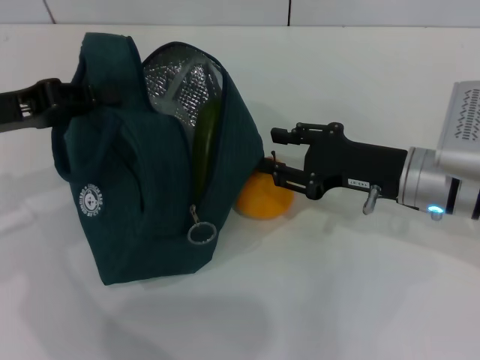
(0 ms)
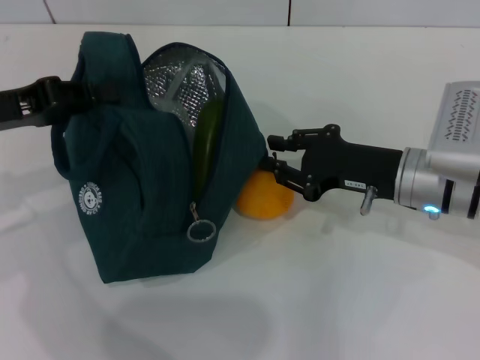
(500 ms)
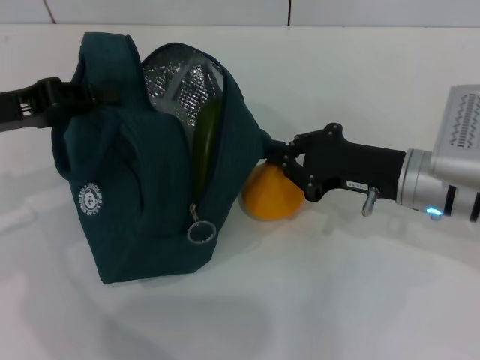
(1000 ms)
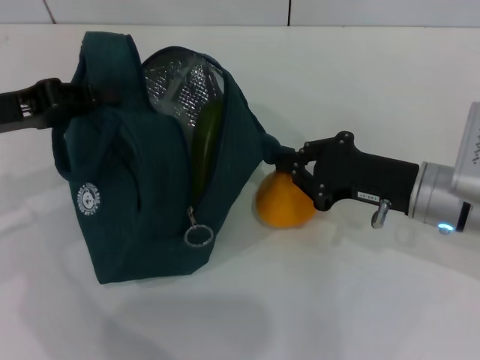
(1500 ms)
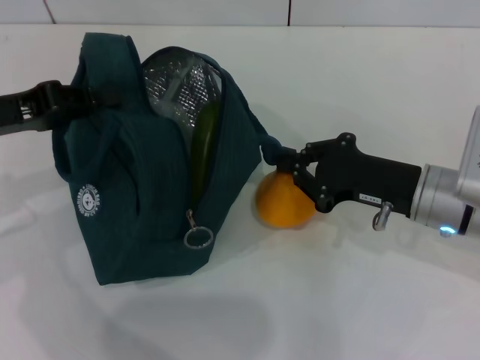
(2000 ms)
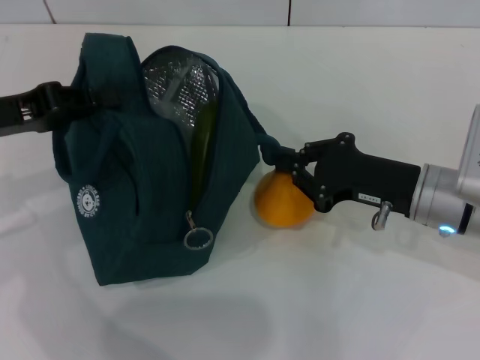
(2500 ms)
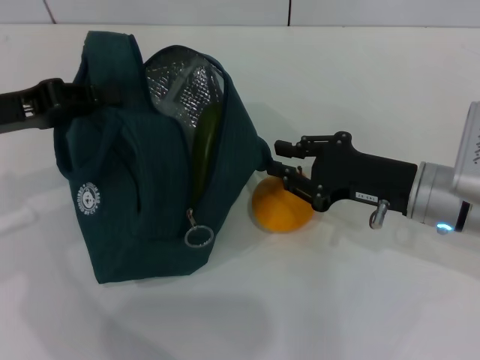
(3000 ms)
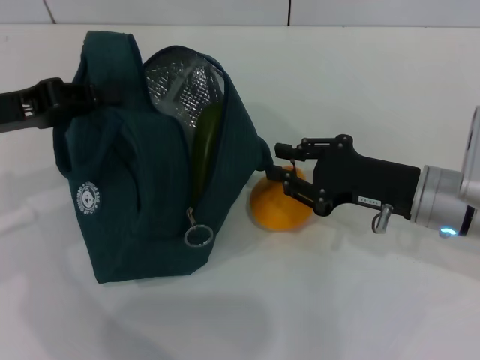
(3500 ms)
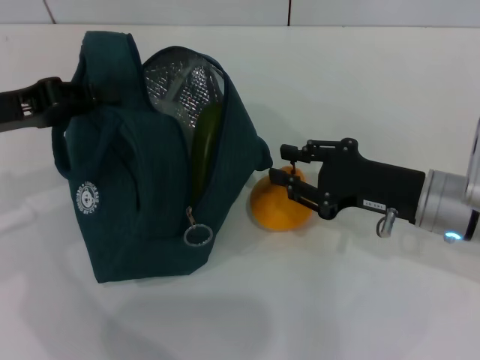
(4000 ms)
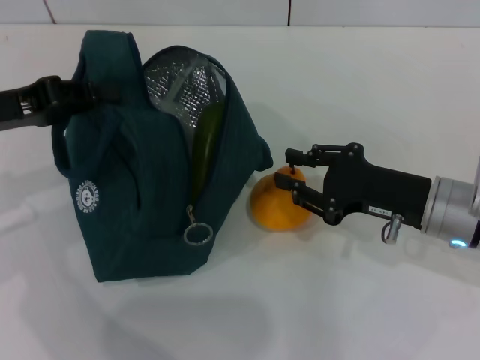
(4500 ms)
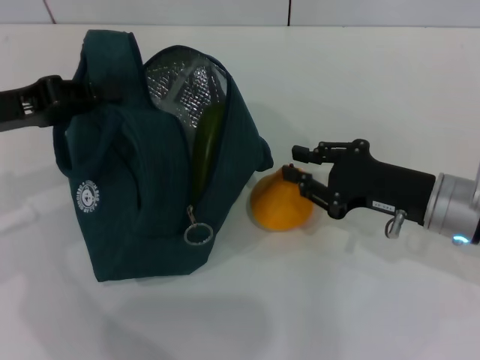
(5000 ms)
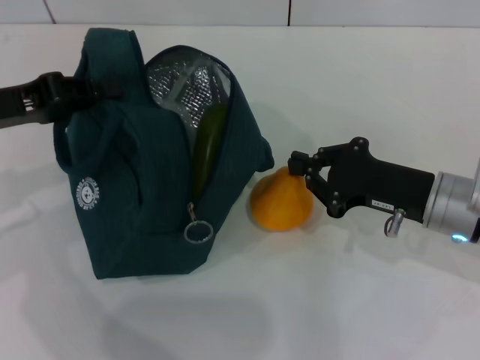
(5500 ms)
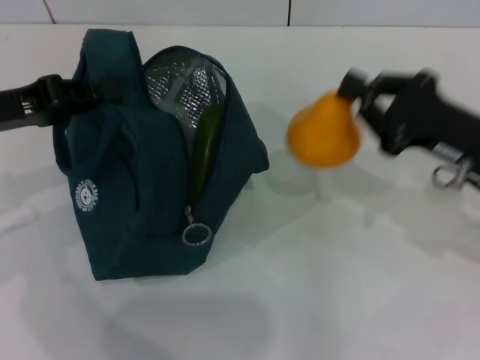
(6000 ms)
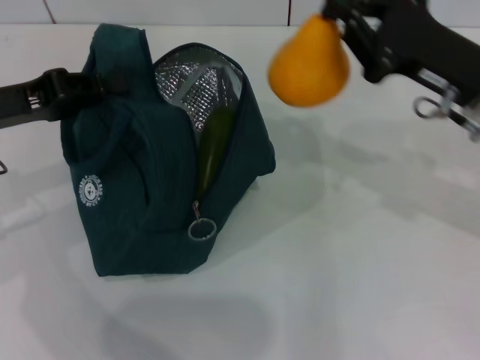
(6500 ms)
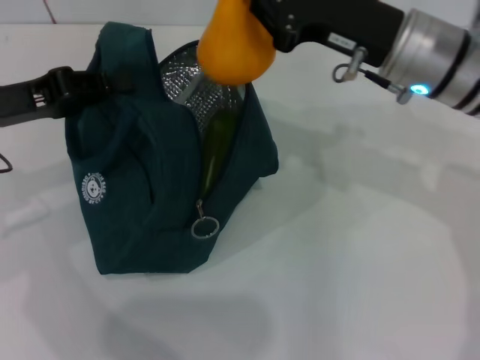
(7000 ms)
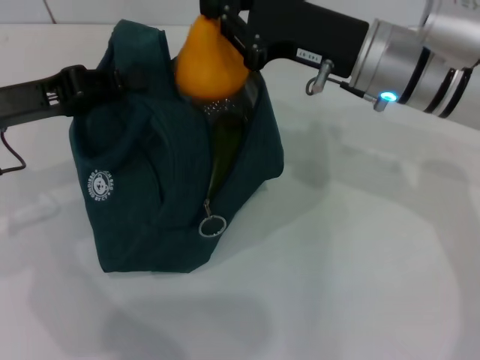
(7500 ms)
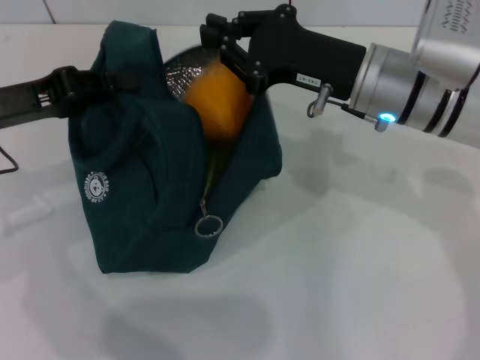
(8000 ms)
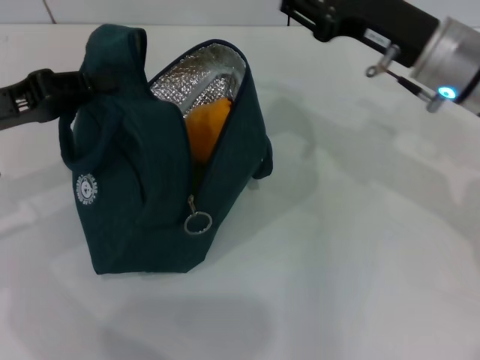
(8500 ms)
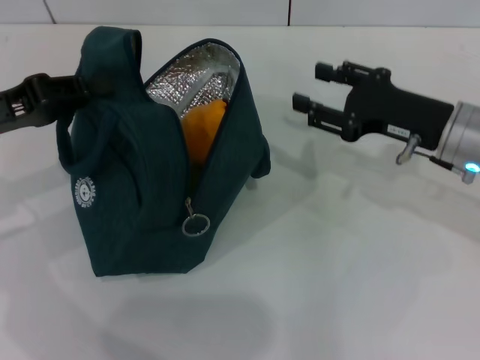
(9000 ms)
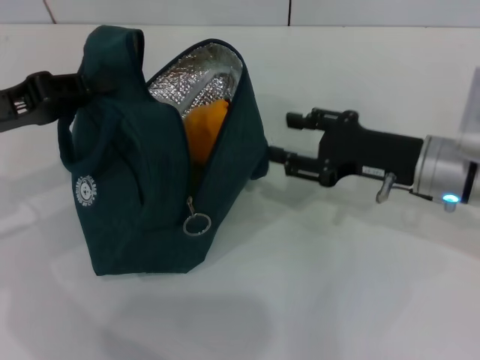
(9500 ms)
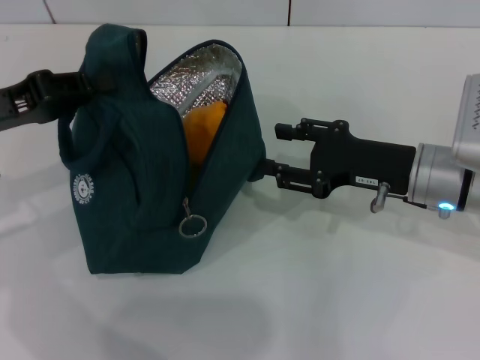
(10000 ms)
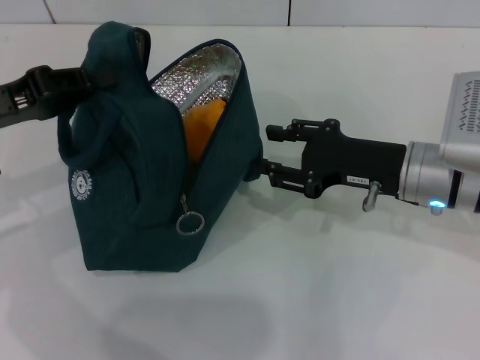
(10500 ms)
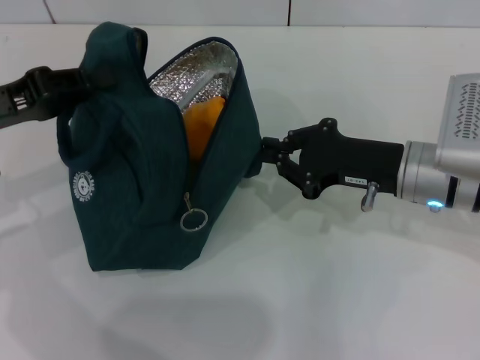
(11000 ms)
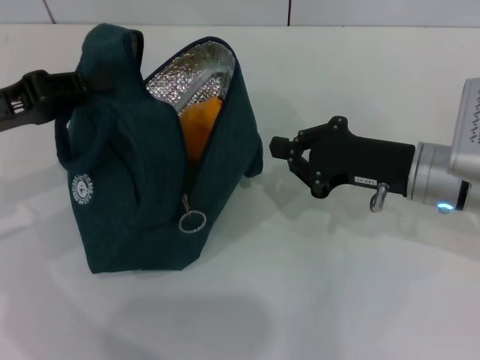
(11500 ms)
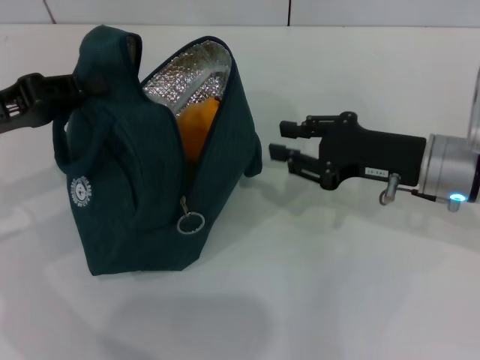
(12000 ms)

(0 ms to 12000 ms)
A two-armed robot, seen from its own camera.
Step, 0 ms - 5500 ms: Grab the pear with your right hand.
0 ms - 2000 ms: The right gripper closes.
2000 ms - 4000 ms: Both grippers stay put.
4000 ms - 6000 ms: The right gripper ends up approximately 5 cm from where it was, and closes its fingers.
6000 ms - 8000 ms: The right gripper moves to the left and forward, roughly 15 cm.
8000 ms - 10000 ms: The right gripper is displaced downward and to the right by approximately 10 cm, and opens.
10000 ms - 12000 ms: The right gripper closes its fingers.

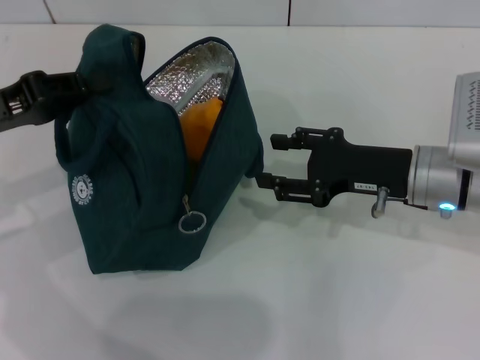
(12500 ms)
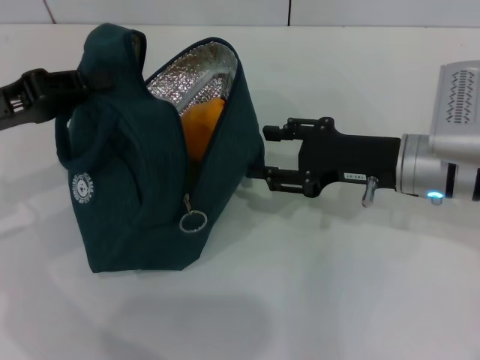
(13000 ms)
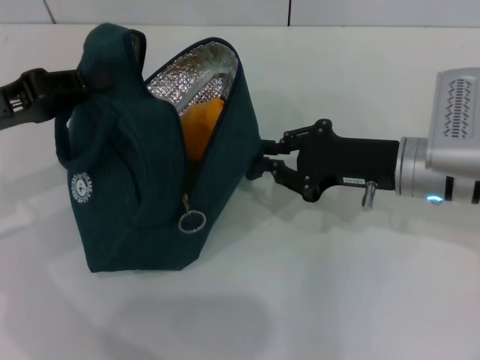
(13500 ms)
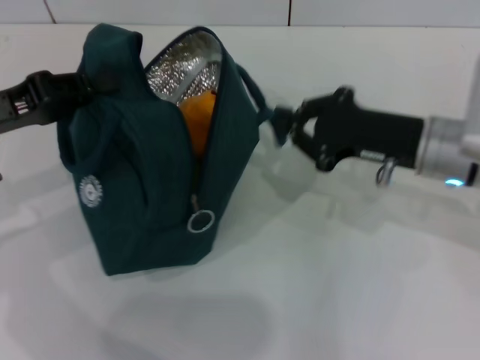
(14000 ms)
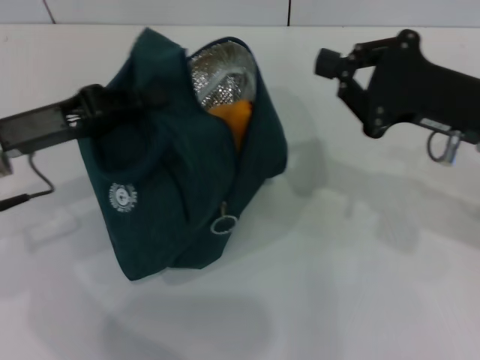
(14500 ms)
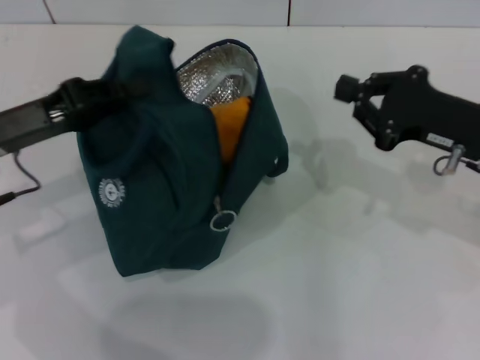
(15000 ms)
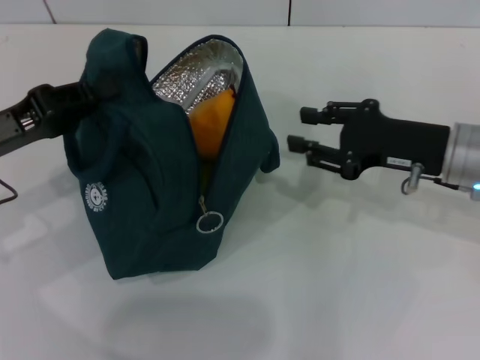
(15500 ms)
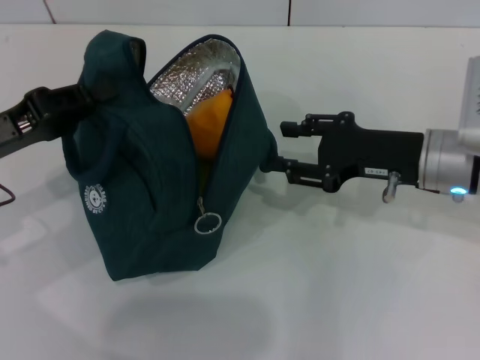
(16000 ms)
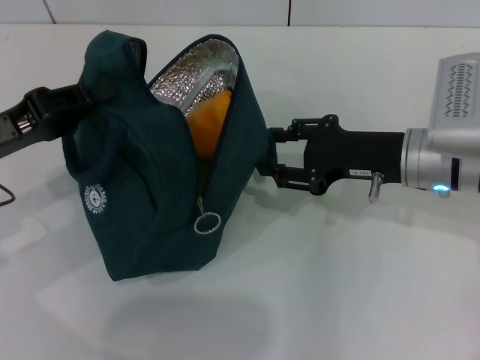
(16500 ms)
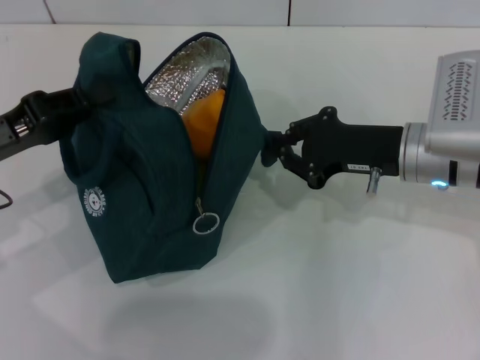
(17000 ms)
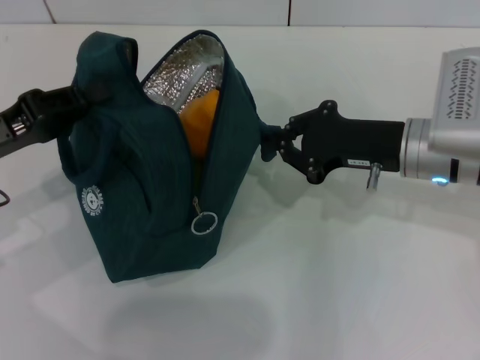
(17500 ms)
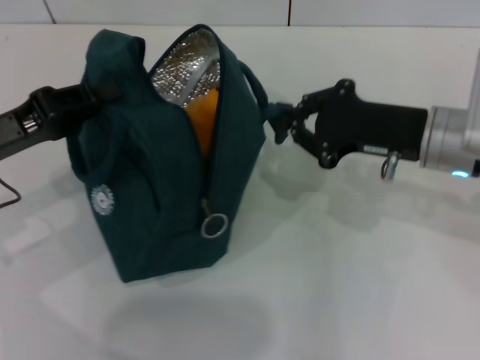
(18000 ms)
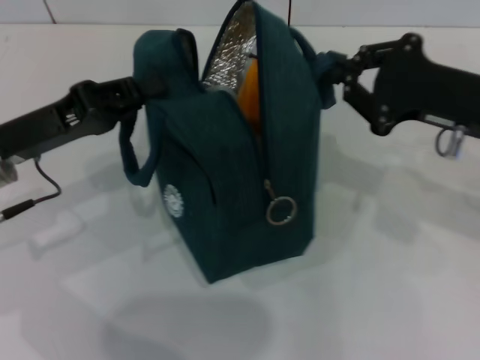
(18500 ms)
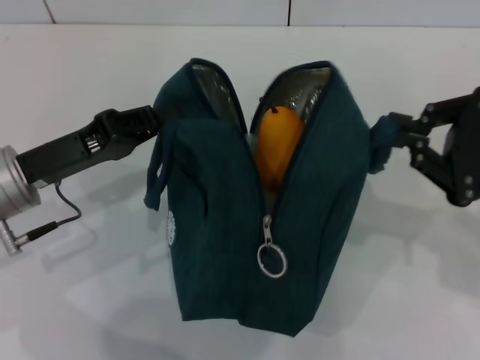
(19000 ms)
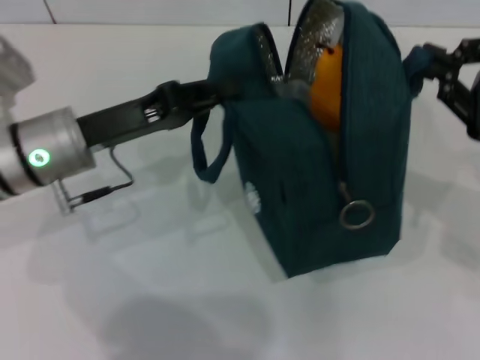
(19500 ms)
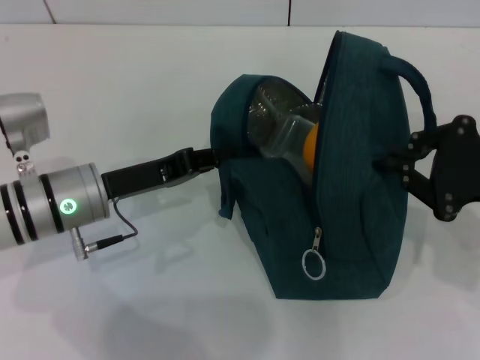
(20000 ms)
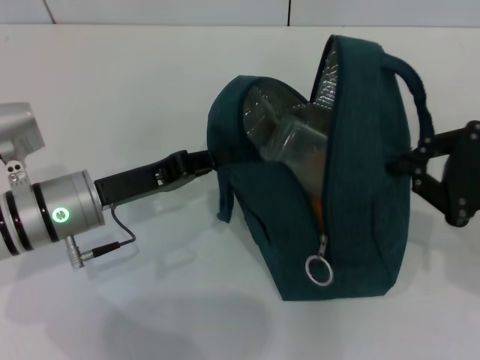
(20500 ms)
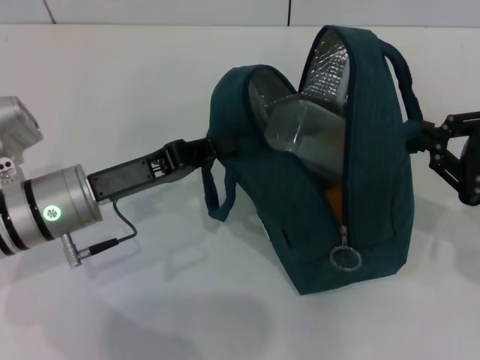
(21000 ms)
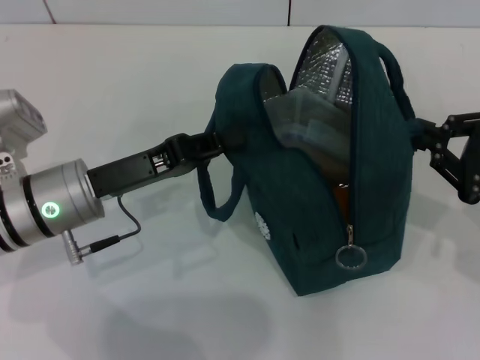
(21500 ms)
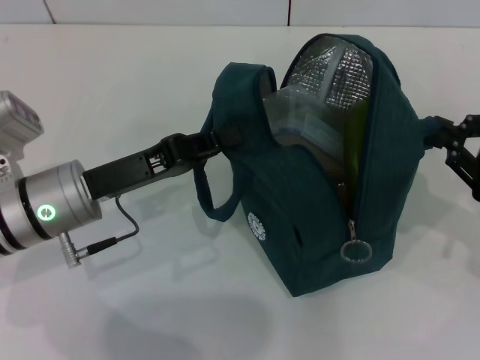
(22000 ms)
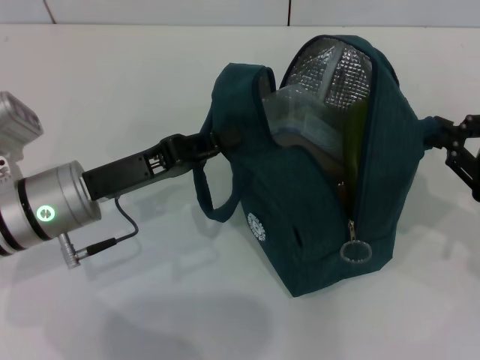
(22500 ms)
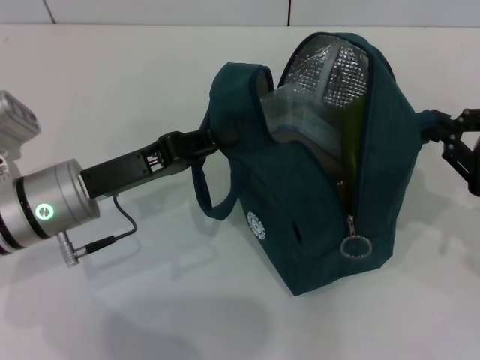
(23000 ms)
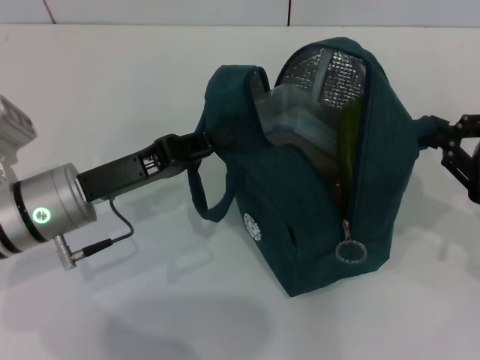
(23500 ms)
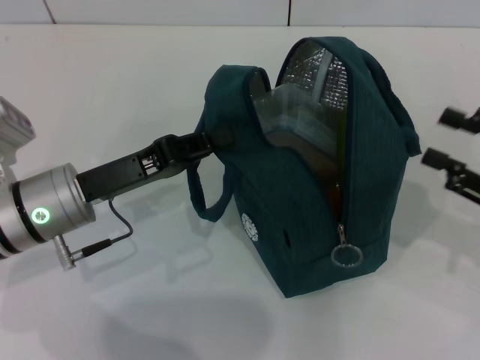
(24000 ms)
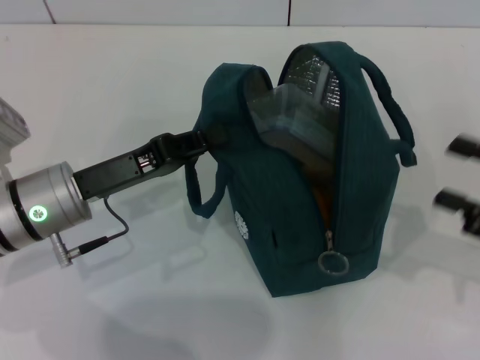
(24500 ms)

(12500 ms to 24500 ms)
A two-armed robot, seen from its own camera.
Step, 12500 ms - 23500 ms: Hold the lunch bag with your right hand.
12500 ms - 14500 ms: The right gripper heads upward, covering approximately 5 cm, and closes.
14500 ms - 16500 ms: The right gripper shifts some 5 cm downward, and opens.
16500 ms - 18500 ms: The right gripper travels upward and to the right by some 10 cm, and closes up.
18500 ms - 20500 ms: The right gripper shifts approximately 5 cm to the right. The left gripper heads downward and to the right, covering about 10 cm.
20500 ms - 22500 ms: The grippers make only small movements.
22500 ms - 24500 ms: The right gripper opens.

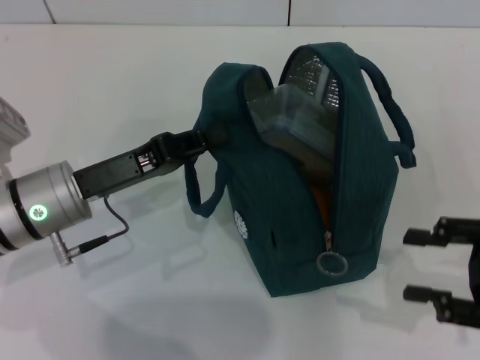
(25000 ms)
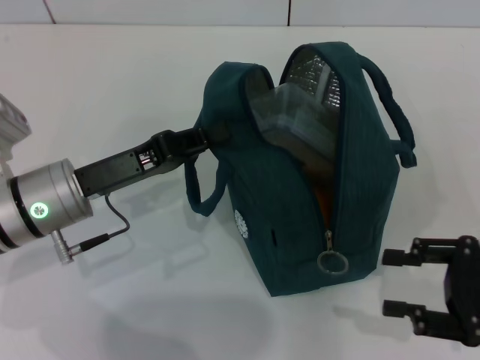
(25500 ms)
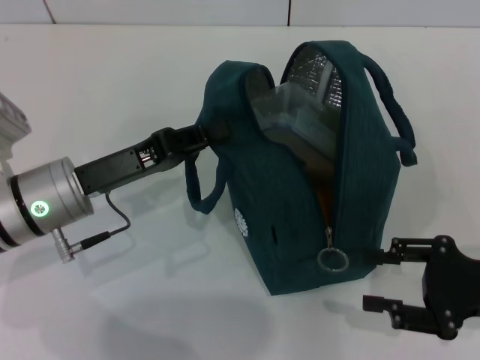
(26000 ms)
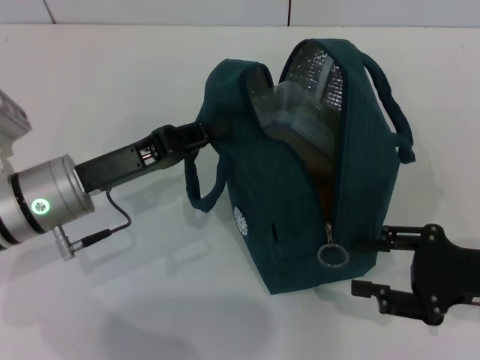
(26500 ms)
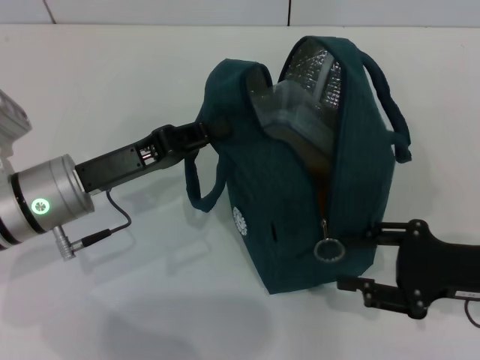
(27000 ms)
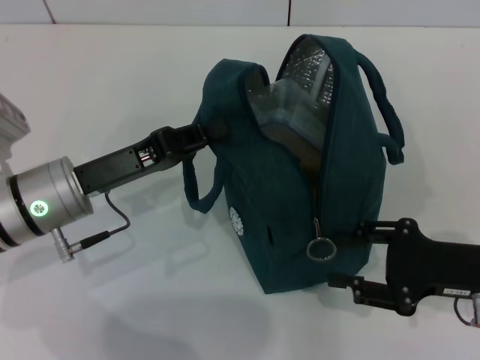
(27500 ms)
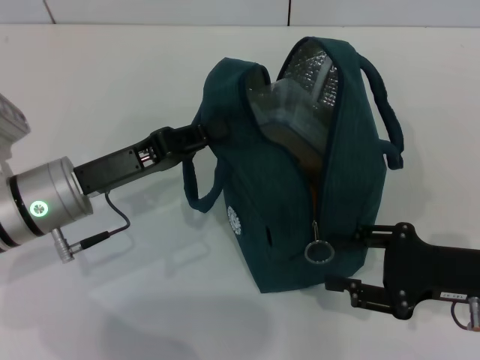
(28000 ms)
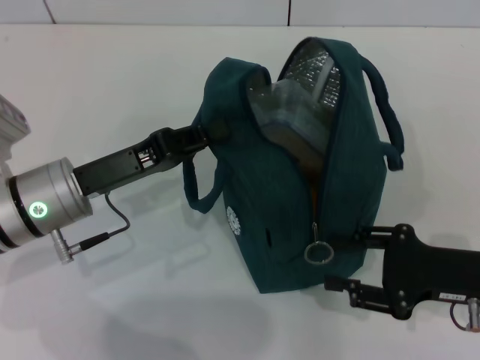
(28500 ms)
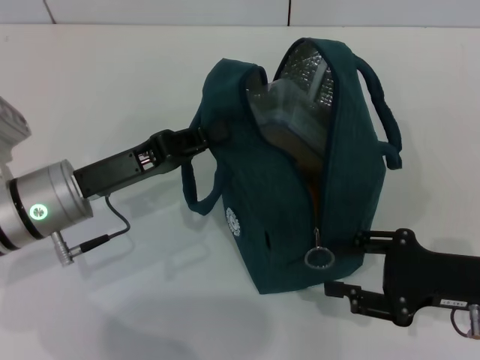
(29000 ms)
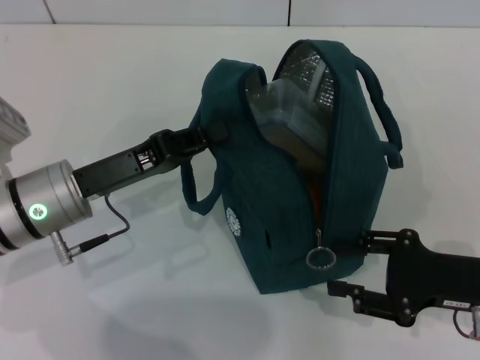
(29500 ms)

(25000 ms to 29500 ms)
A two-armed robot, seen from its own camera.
25000 ms - 27000 ms: The right gripper moves roughly 5 cm.
27000 ms - 29500 ms: There are only small adjustments of the grippers.
